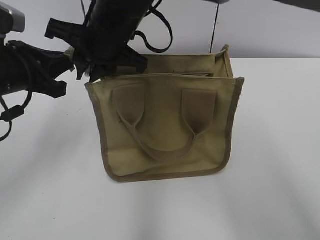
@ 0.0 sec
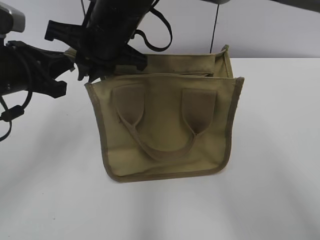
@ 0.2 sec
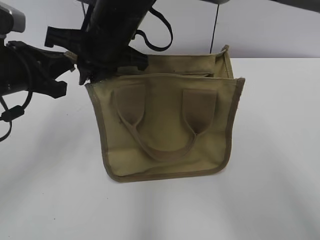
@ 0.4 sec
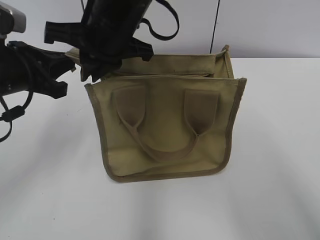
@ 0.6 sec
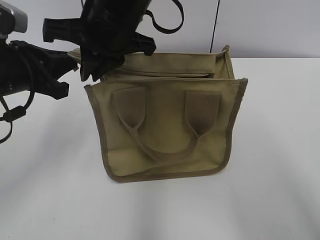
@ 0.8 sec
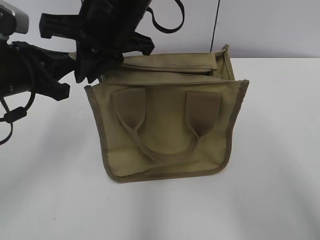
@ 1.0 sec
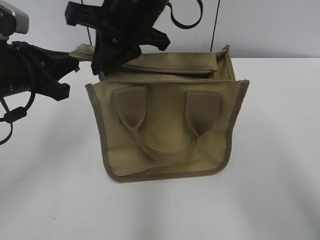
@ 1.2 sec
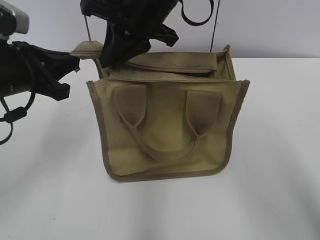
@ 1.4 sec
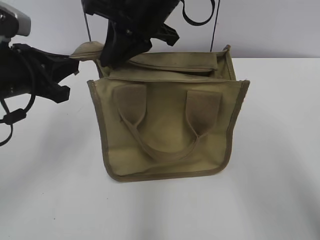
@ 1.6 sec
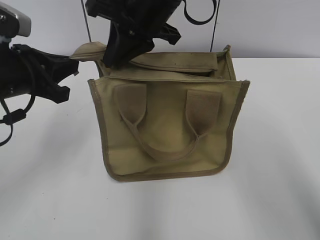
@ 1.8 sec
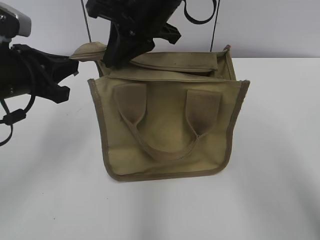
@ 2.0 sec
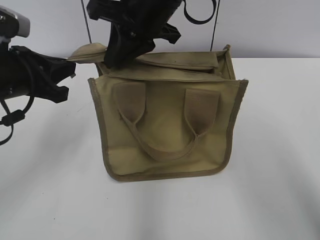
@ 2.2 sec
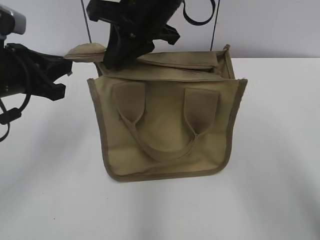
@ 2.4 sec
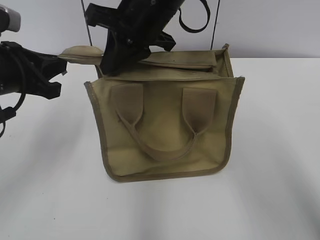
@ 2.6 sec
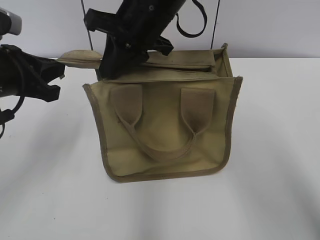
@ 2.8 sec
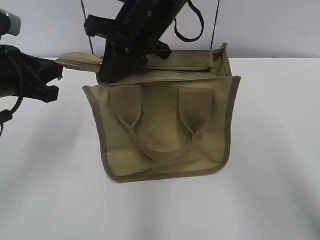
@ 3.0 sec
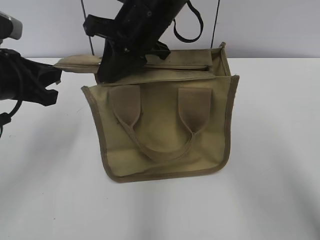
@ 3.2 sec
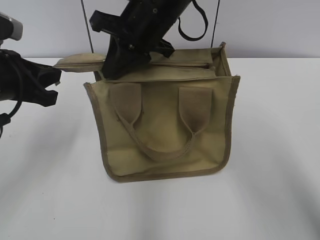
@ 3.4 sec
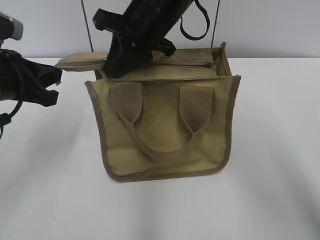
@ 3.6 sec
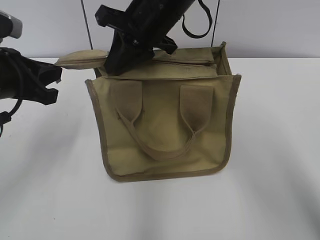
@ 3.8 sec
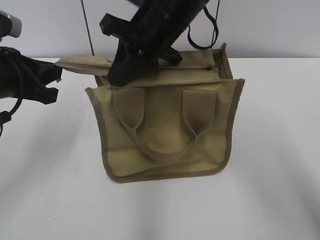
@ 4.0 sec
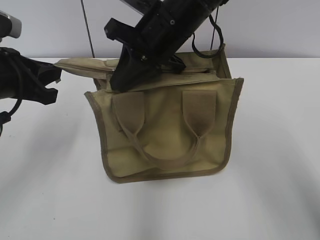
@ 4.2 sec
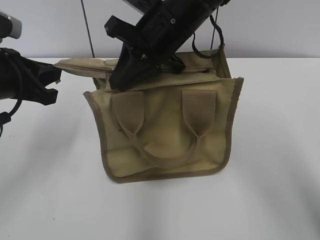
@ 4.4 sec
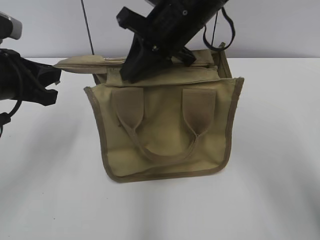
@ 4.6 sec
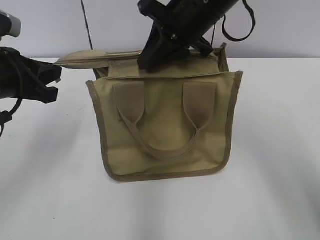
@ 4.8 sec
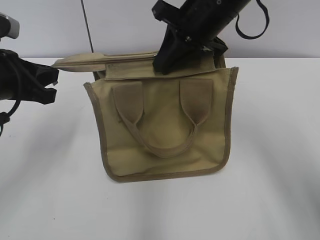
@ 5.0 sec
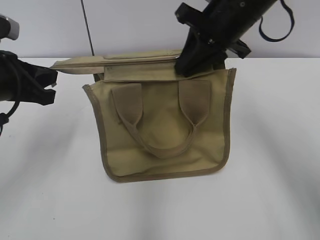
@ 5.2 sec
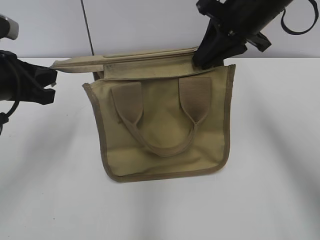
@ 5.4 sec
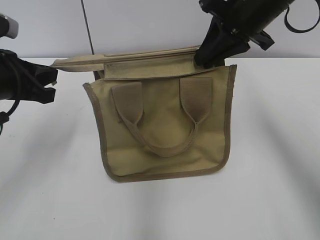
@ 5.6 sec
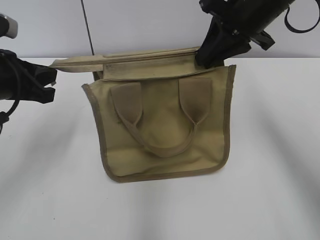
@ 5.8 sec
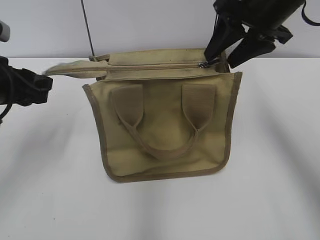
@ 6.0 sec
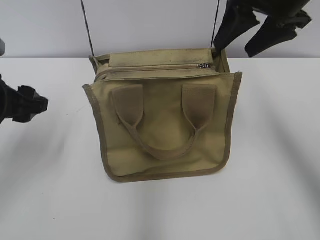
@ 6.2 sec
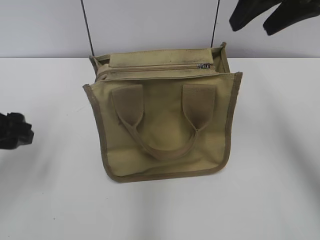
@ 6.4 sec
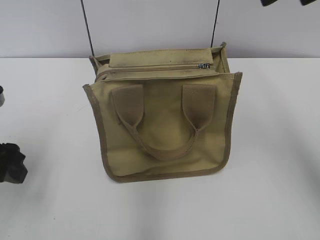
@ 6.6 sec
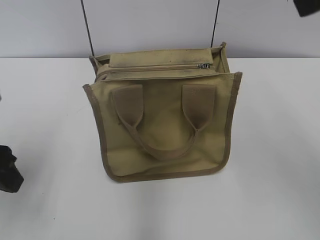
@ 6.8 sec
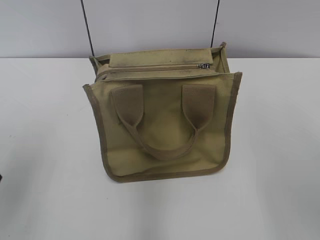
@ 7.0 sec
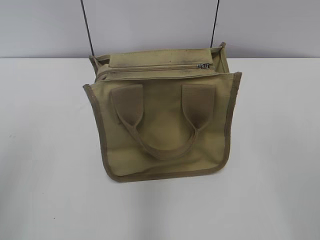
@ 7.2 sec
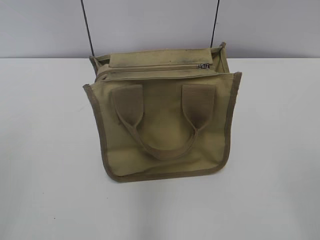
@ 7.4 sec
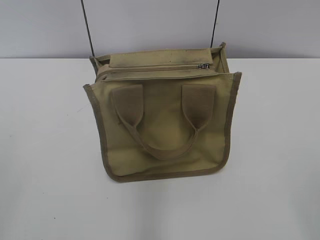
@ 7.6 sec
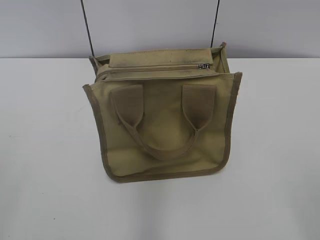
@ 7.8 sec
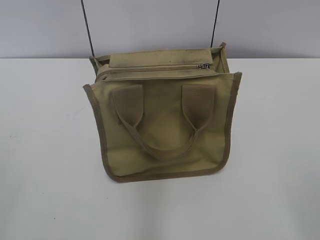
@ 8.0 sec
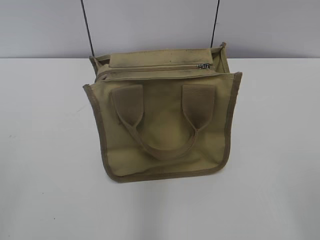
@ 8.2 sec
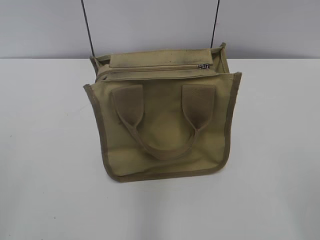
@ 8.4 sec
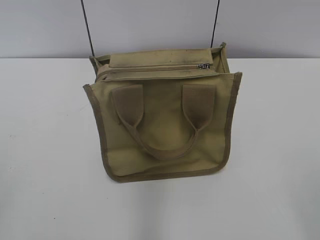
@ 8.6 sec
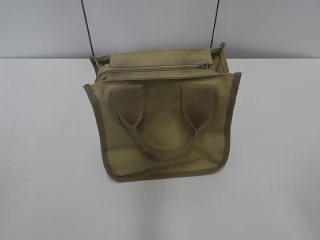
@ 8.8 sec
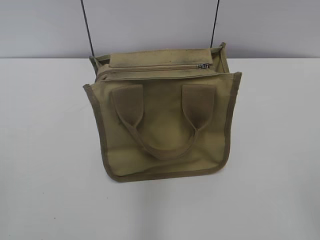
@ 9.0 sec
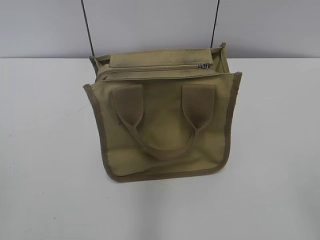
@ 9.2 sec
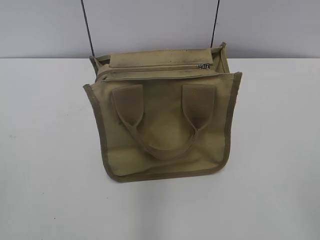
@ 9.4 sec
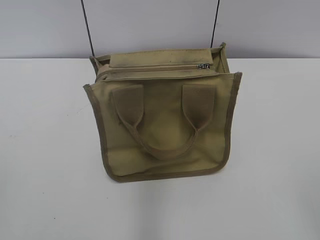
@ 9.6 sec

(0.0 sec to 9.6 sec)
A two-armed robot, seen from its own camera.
Step, 0.0 sec - 5.8 sec: Zip up the bag with your right hand.
0.0 sec - 1.6 sec: The right gripper shifts approximately 5 cm to the right.
1.6 sec - 3.2 sec: The grippers stay close to where they were, moving slightly.
3.2 sec - 4.8 sec: The right gripper heads to the right, covering about 10 cm.
4.8 sec - 6.4 sec: The left gripper changes place by approximately 5 cm, and opens; the right gripper shifts approximately 15 cm to the right and upward, and opens its fingers.
6.4 sec - 8.0 sec: The right gripper moves backward, about 30 cm. Meanwhile the left gripper is displaced backward and upward by roughly 25 cm.
